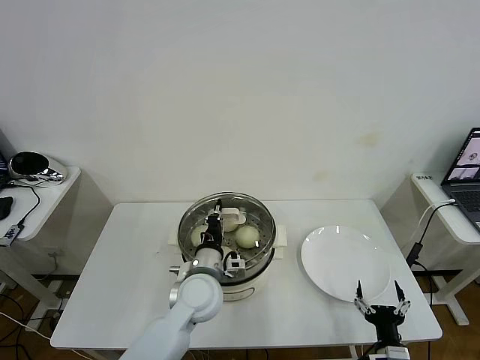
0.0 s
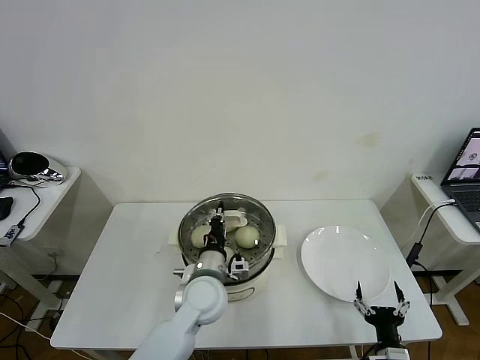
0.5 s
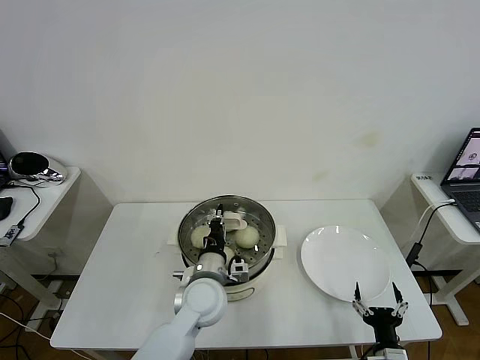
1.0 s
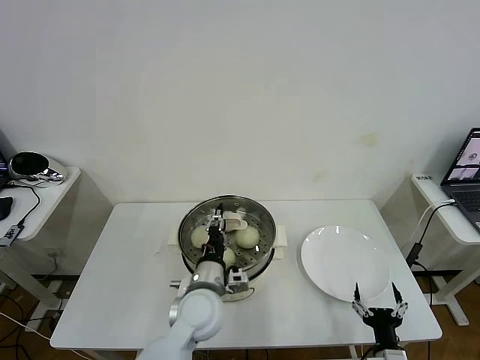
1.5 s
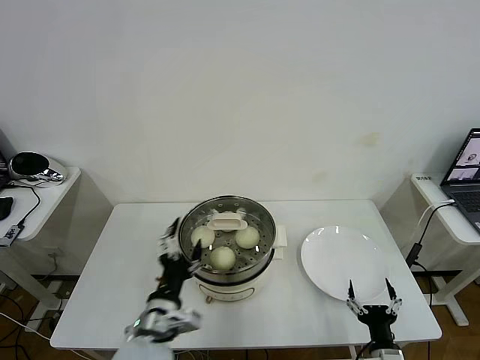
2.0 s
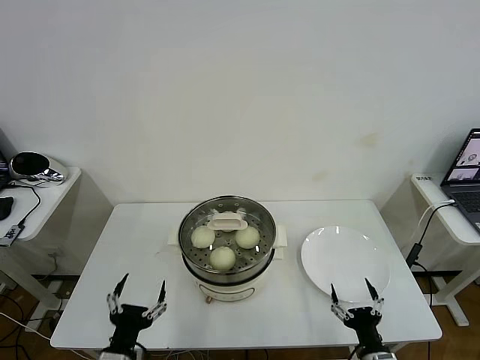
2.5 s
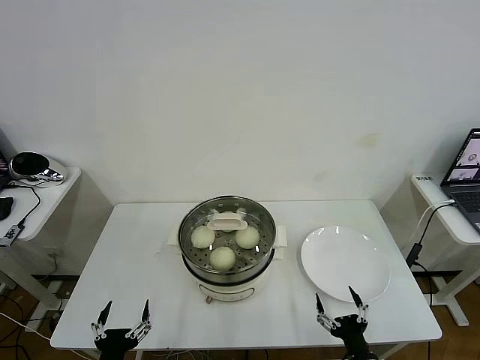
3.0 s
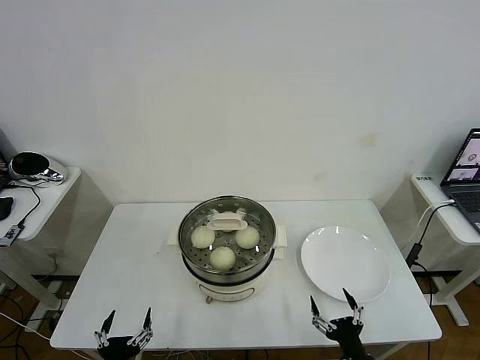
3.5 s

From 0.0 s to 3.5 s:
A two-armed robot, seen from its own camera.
Task of the whole recording: take steamed baozi put them in steamer then cover it.
From 0.0 s to 2.0 s: The left gripper moves backward and to the left, approximately 10 cm, and opens its fingers.
From 2.0 s to 3.5 s: The left gripper shifts about 20 cm backward, to the left and downward; the right gripper shifts by approximately 5 cm.

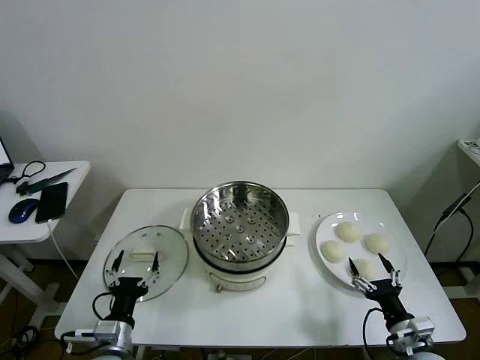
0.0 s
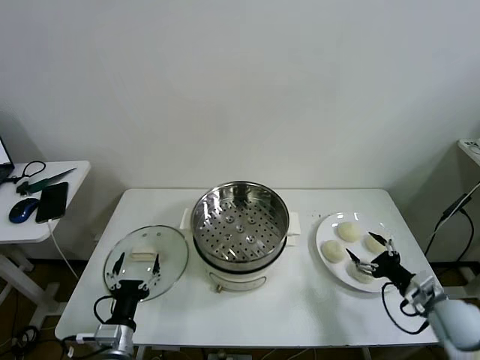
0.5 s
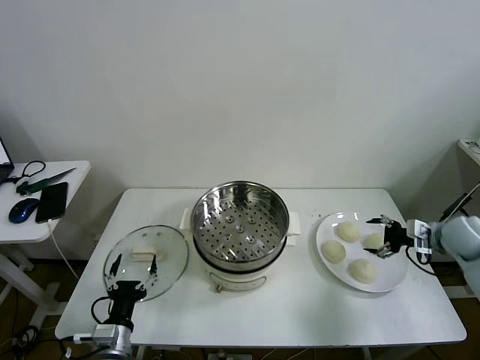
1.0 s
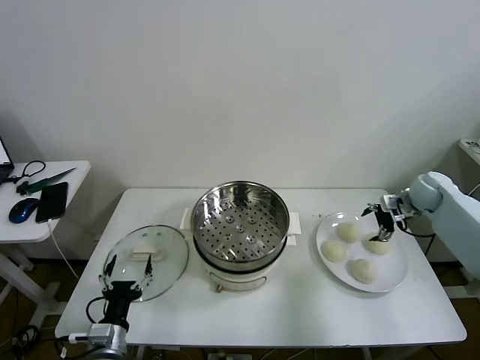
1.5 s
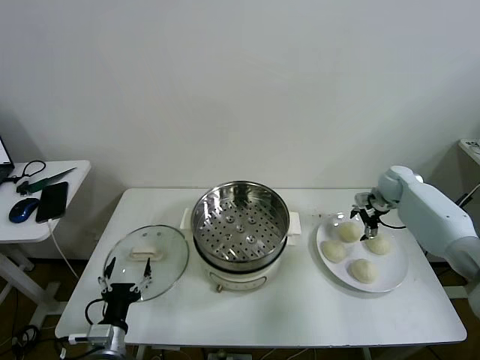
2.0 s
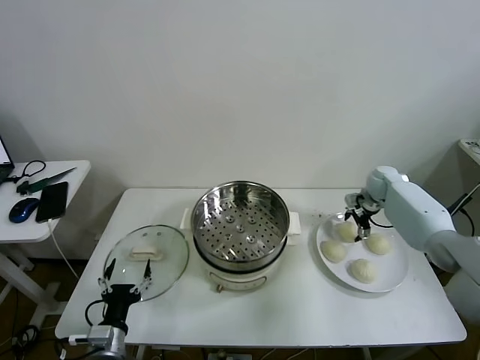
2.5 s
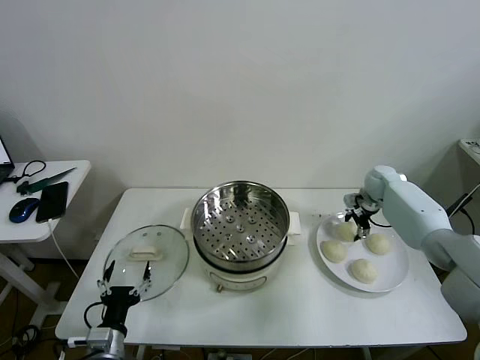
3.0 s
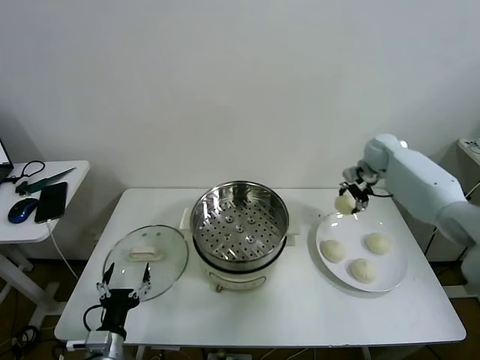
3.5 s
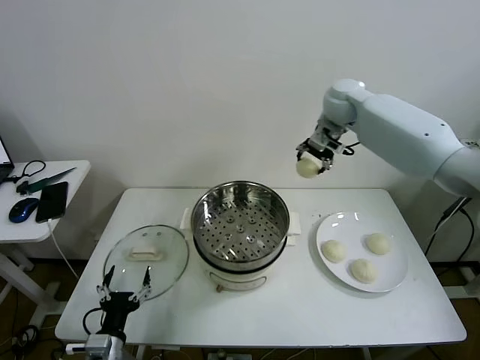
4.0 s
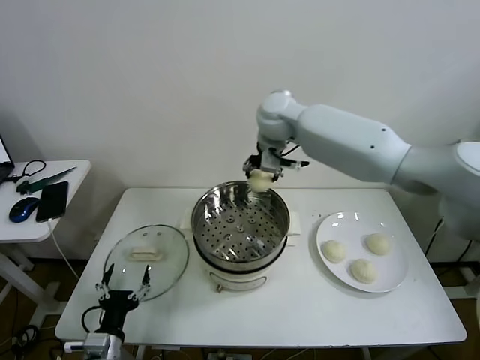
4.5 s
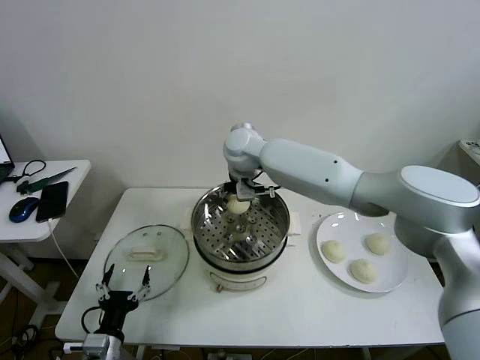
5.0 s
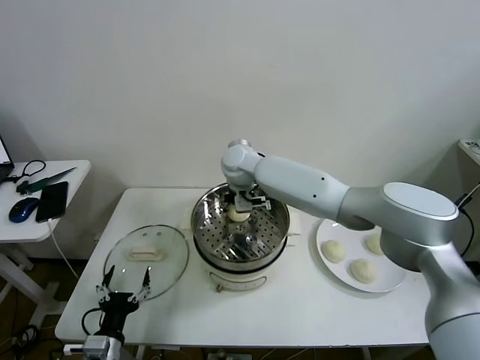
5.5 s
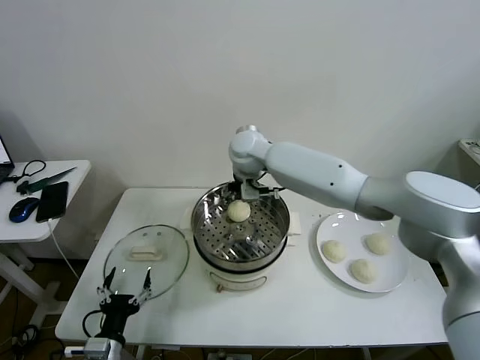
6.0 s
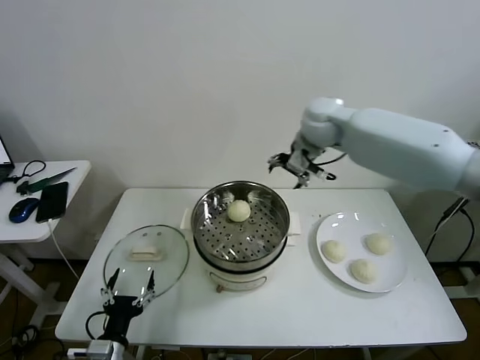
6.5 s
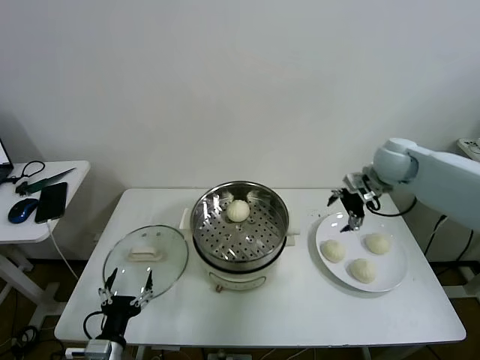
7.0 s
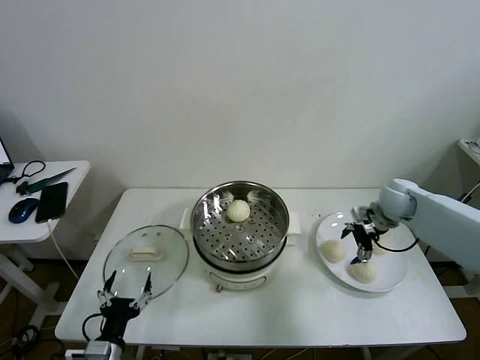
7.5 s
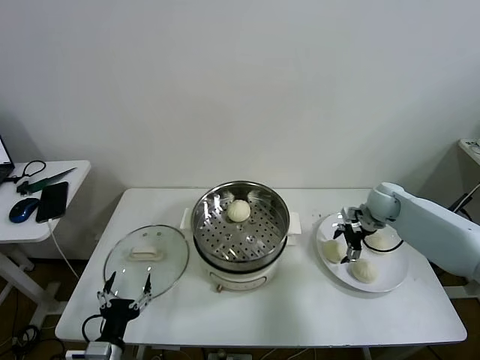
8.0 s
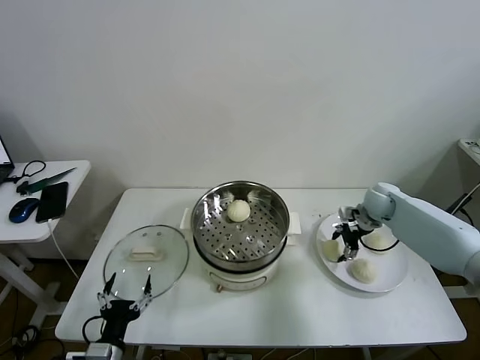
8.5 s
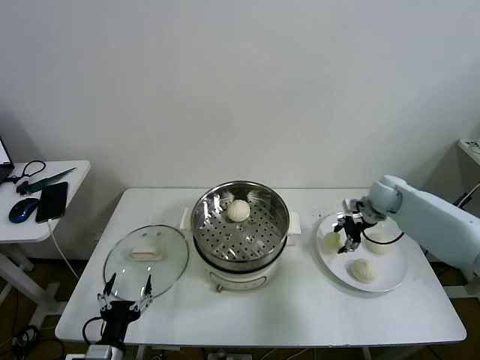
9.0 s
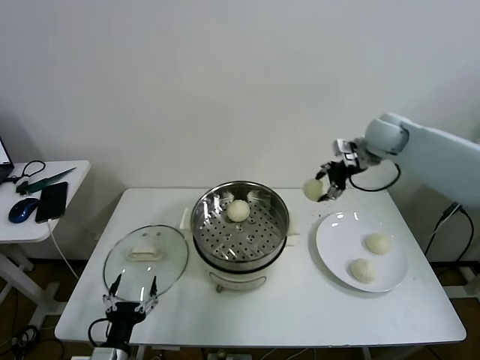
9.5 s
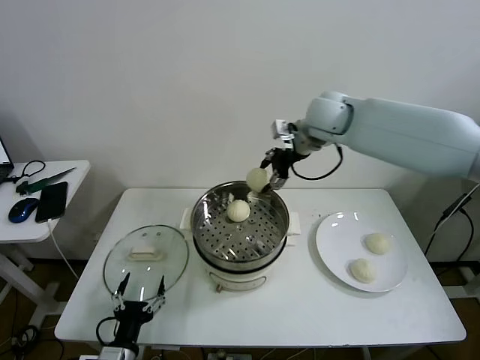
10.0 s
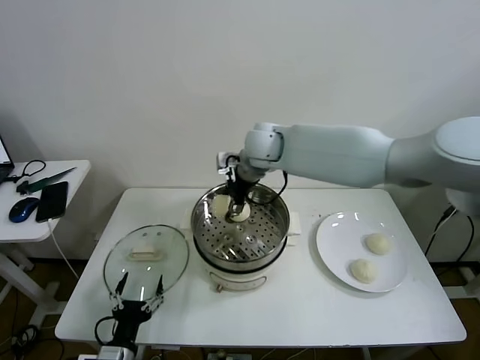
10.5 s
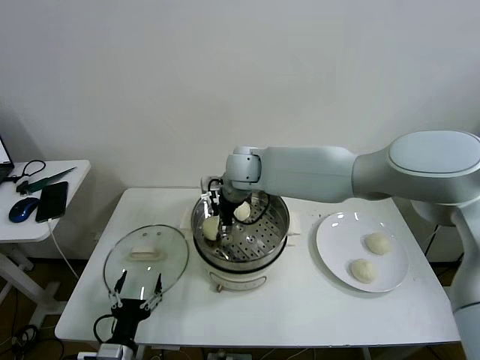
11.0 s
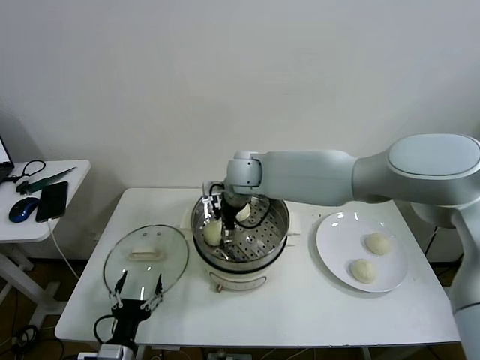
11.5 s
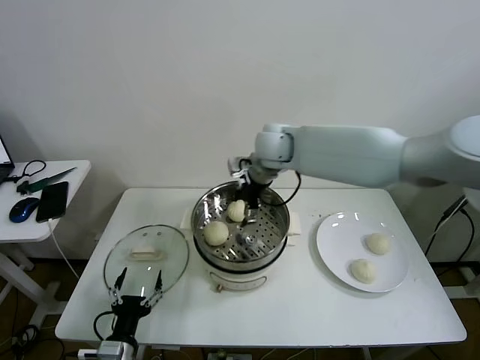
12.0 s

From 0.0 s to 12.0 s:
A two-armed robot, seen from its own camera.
Task of the whole recording: take steamed baozi put them in steamer then cover it.
Step, from 0.0 s to 2.5 s: Grasp the baozi in the plate with right gripper.
Step, from 3.0 s to 5.5 s: Place the baozi on the steamer with right gripper.
Step, from 6.0 s to 8.5 s: Grasp the baozi in the plate with right gripper.
Step, from 9.0 s to 11.5 s: Place the baozi on the steamer with right gripper.
From 2.0 s to 4.0 s: The right gripper is displaced upward and to the left by roughly 35 cm, and closes up.
From 4.0 s to 6.0 s: The right gripper goes about 20 cm to the left and downward, and opens.
From 6.0 s to 8.0 s: The right gripper goes roughly 40 cm to the right and downward.
From 8.0 s to 10.0 s: The right gripper moves upward and to the left, roughly 35 cm, and closes.
From 10.0 s to 12.0 s: The right gripper goes roughly 5 cm to the left, and opens its fingers.

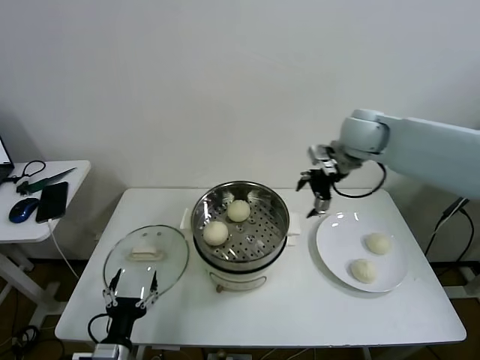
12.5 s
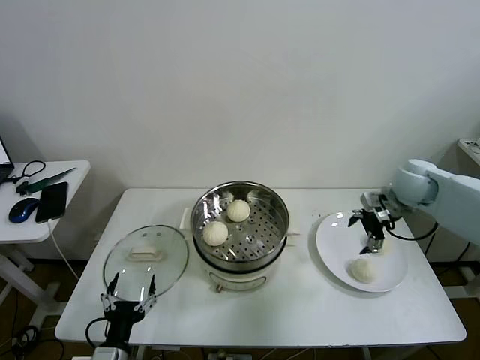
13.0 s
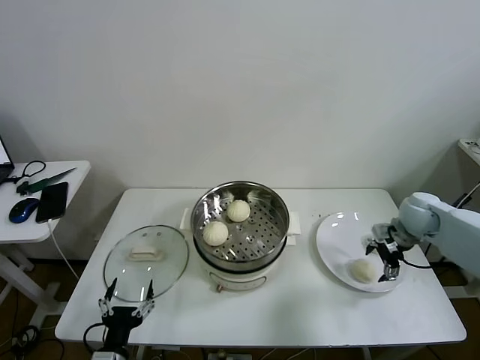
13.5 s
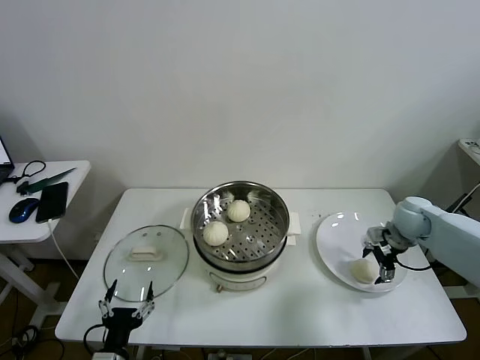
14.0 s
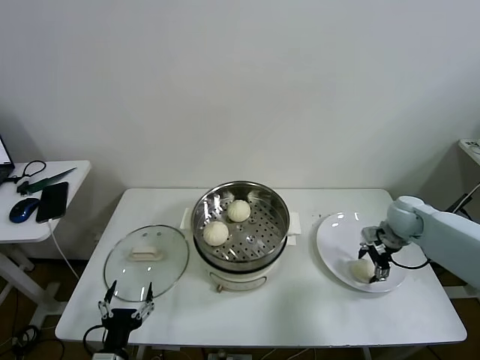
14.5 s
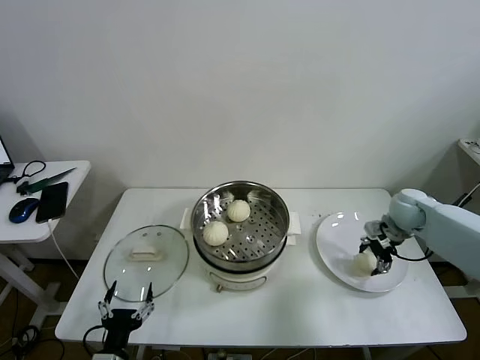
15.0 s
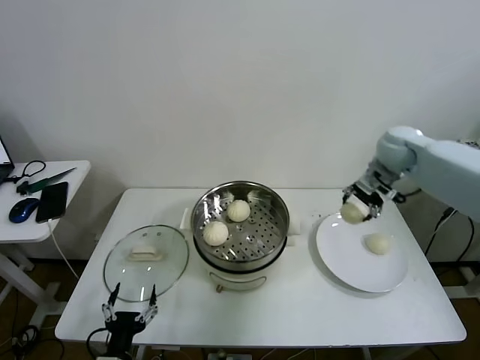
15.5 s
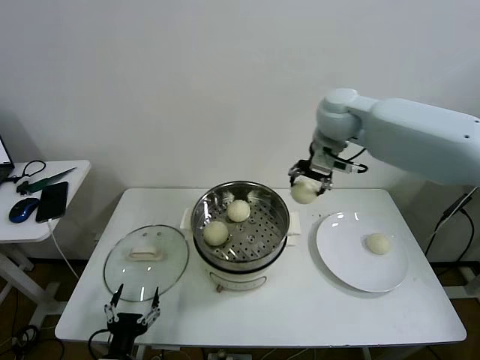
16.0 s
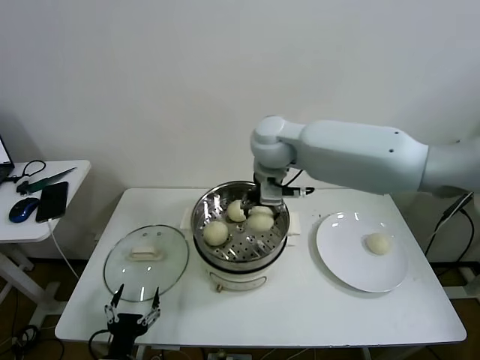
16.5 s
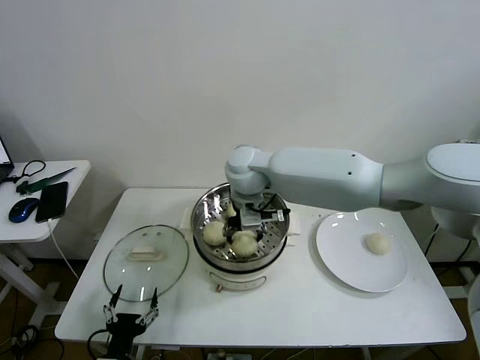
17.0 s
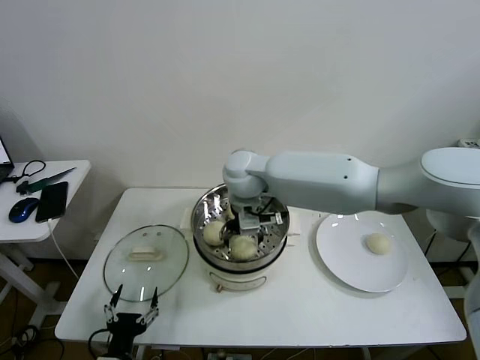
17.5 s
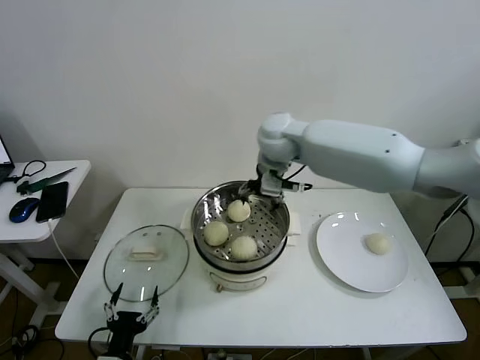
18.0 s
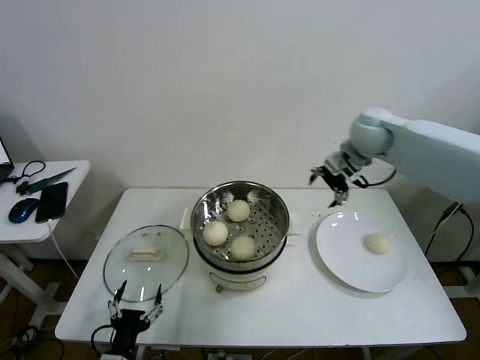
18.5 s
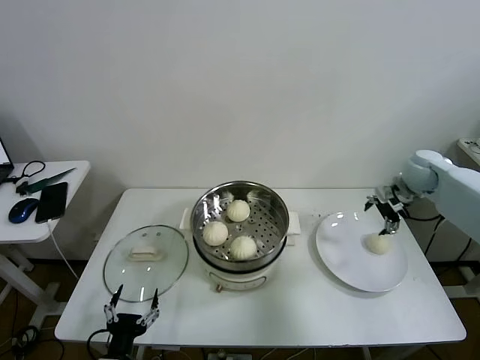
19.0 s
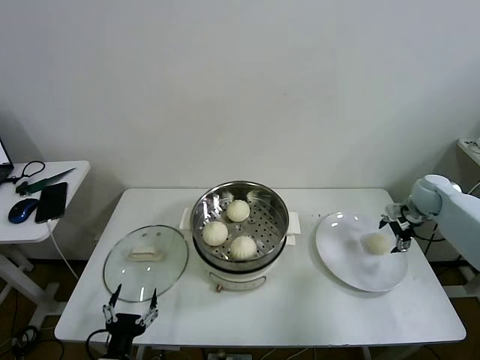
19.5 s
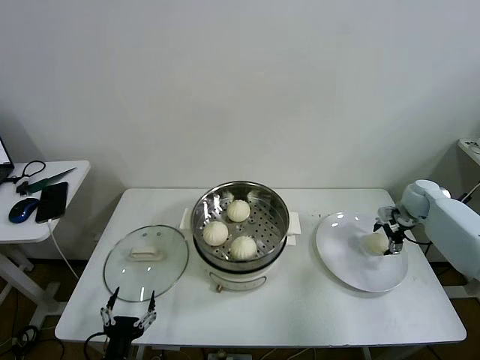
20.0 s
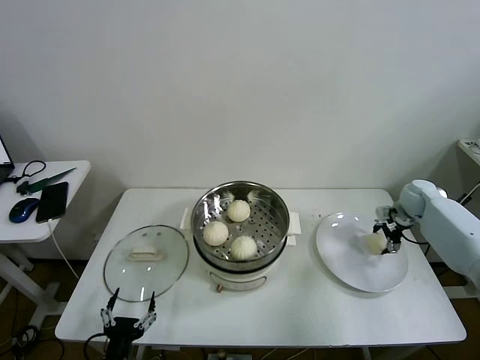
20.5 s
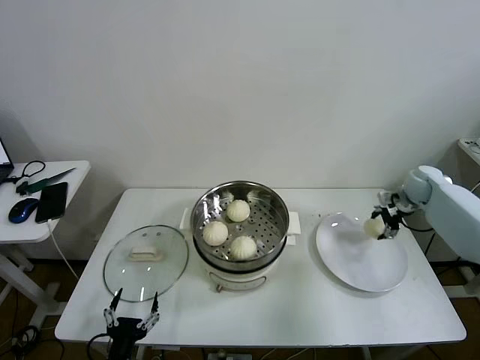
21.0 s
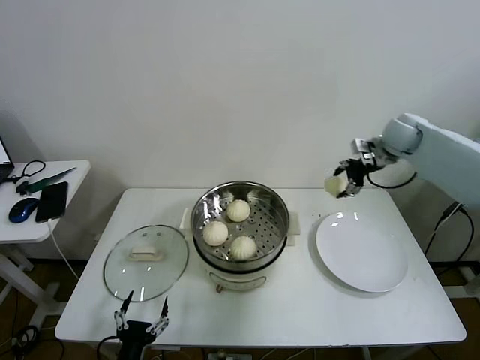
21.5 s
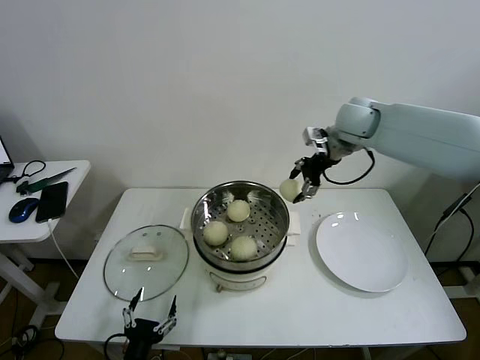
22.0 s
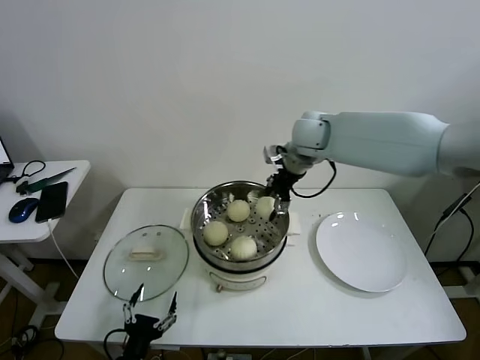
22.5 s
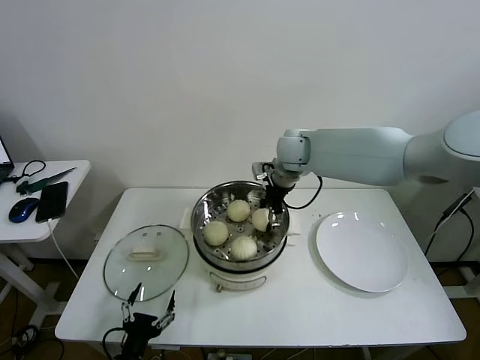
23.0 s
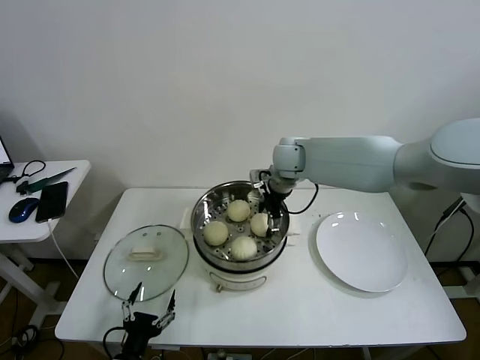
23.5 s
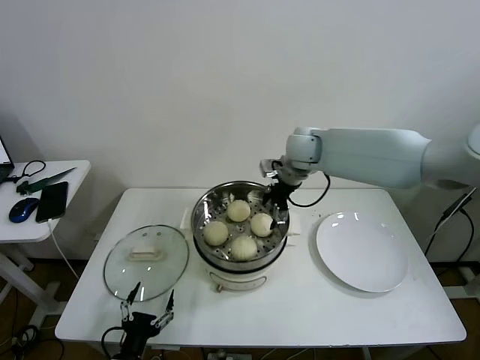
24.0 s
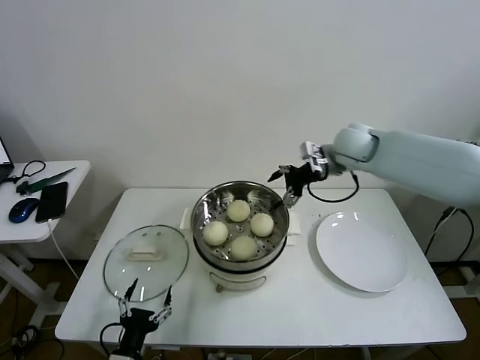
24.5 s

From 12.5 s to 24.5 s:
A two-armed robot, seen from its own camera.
Task of the whole recording: take steamed baozi put them in steamer then cover it.
Step, from 12.5 s to 14.5 s: Grasp the baozi in the plate with right gripper.
Step, from 15.0 s to 17.5 s: Place the baozi on the steamer with right gripper.
Step, from 18.0 s to 20.5 s: Grasp the baozi in the plate with right gripper.
Step, from 21.0 s to 23.5 s: Place the baozi on the steamer with right gripper.
From 12.5 s to 14.5 s: The right gripper shifts approximately 25 cm downward and to the right, and closes up.
From 14.5 s to 16.5 s: The right gripper travels to the left and upward by some 40 cm.
From 16.5 s to 18.5 s: The right gripper travels to the right by about 25 cm, and opens.
From 18.5 s to 20.5 s: The right gripper goes approximately 30 cm downward and to the right, and closes.
From 20.5 s to 22.5 s: The right gripper heads to the left and upward, covering roughly 40 cm.
From 22.5 s to 24.5 s: The right gripper heads to the right, covering some 10 cm, and opens.
